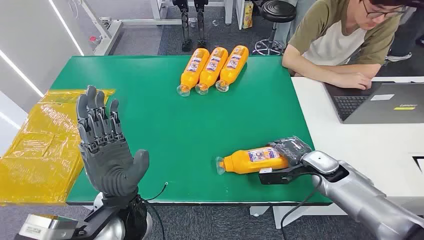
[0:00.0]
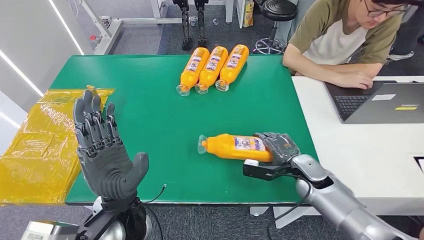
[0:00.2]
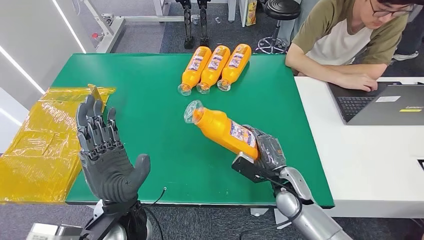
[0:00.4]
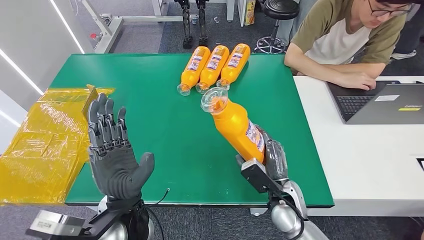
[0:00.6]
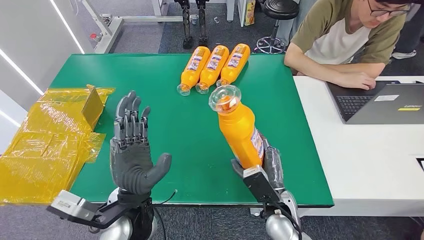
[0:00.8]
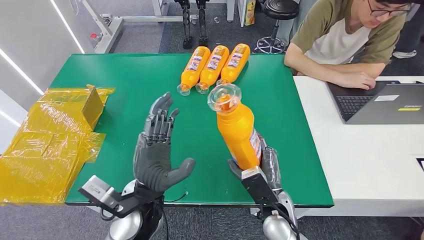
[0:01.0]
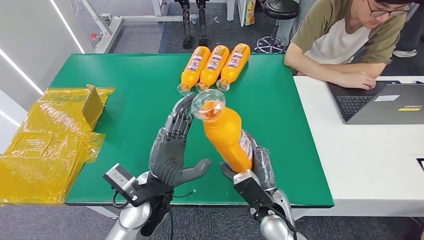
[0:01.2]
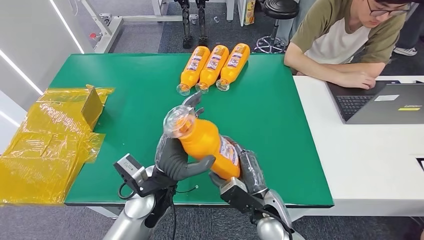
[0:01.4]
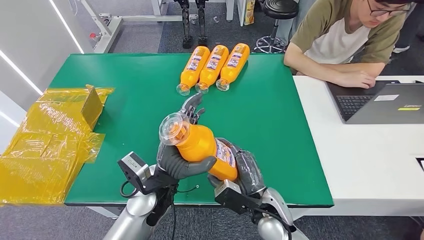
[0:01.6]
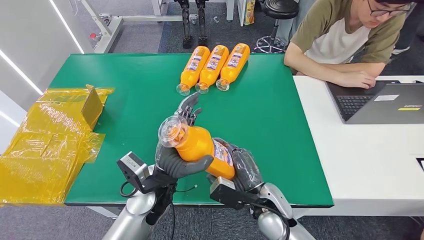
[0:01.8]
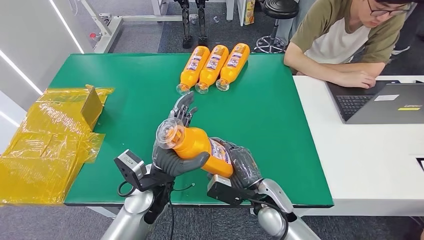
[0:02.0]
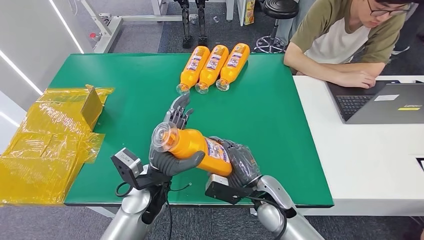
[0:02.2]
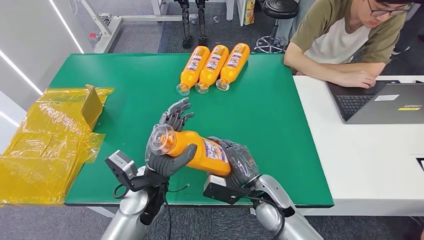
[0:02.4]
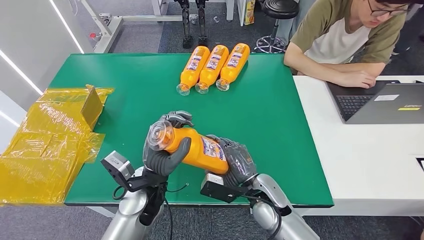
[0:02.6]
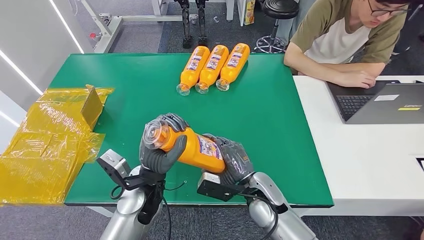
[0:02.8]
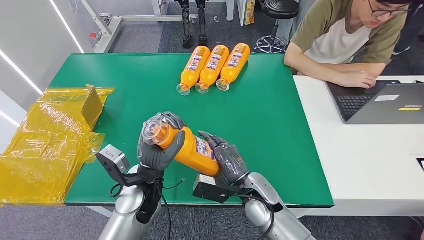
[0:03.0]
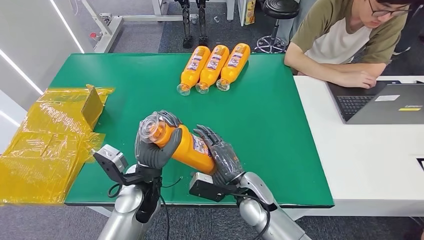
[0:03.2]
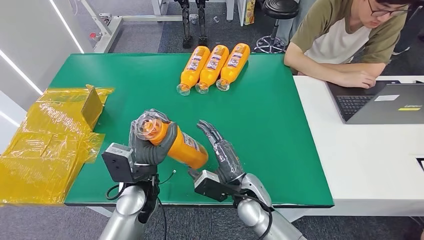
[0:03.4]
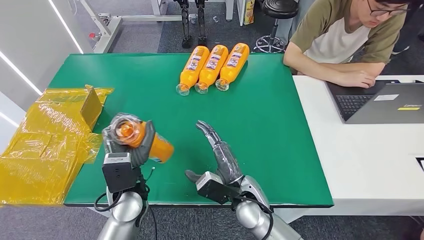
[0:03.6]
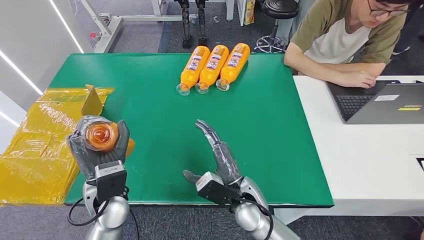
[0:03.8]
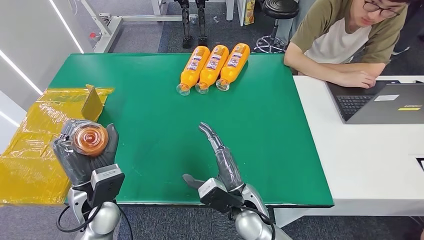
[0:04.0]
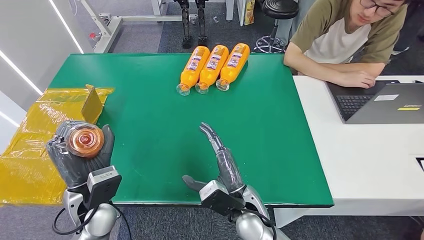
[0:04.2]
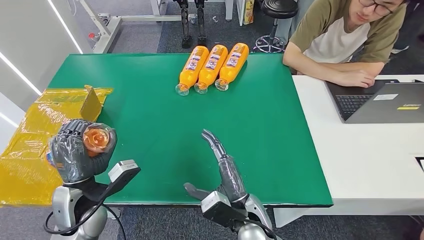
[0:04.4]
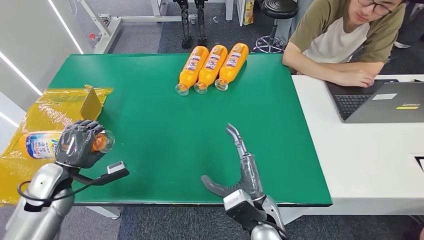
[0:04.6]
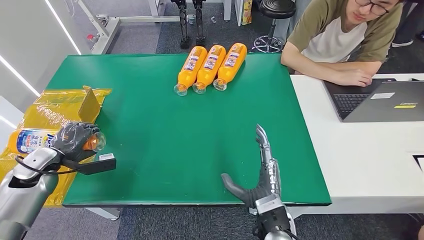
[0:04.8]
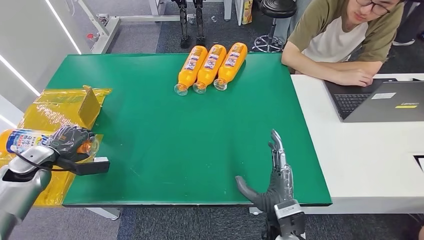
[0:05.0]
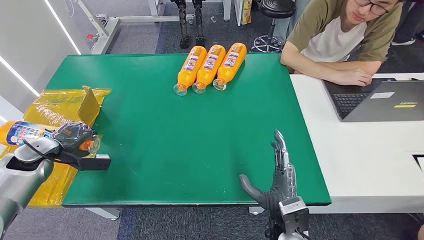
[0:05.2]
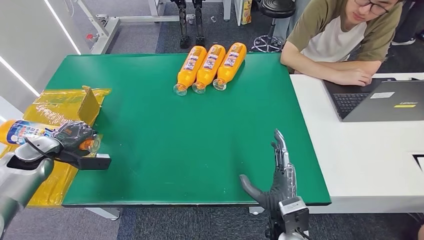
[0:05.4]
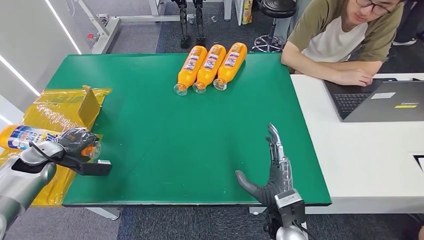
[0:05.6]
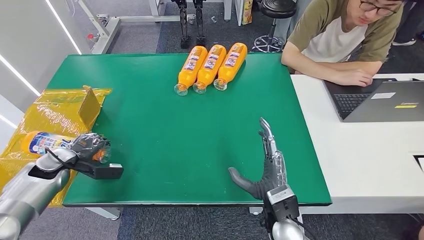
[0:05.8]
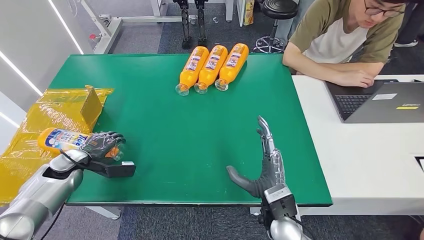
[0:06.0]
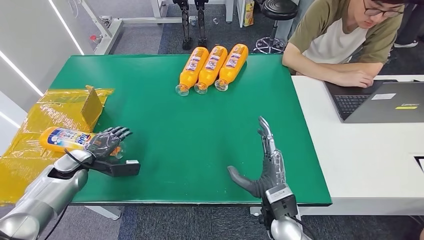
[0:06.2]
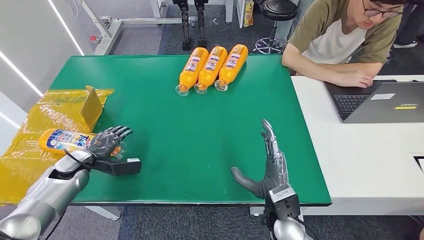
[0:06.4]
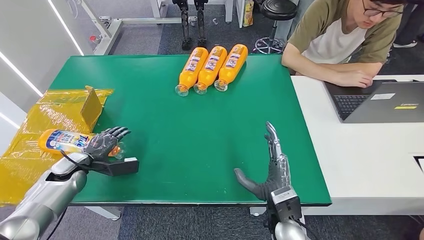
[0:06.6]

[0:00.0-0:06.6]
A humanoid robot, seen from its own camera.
Step, 0:00.0 to 0:02.4: Pick up the bottle from the table.
Step, 0:02.8 to 0:06.6: Turn the bottle to the front side.
0:01.6 to 0:03.2: The right hand ends up some 5 cm from where it was.
0:05.0 to 0:06.6: The left hand heads to the right, covering some 5 cm.
